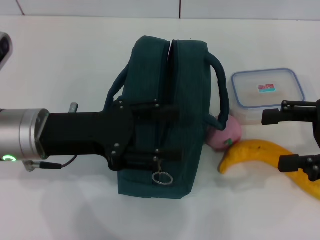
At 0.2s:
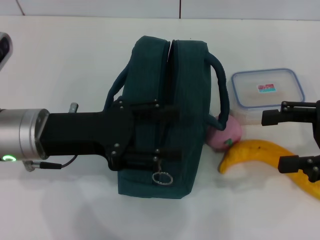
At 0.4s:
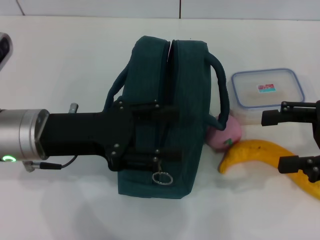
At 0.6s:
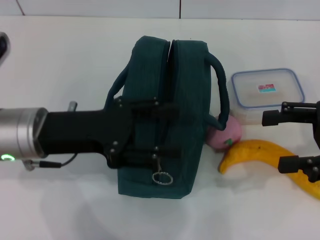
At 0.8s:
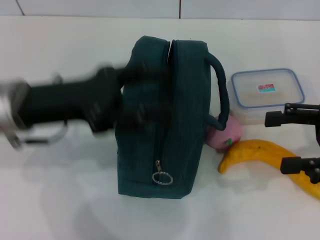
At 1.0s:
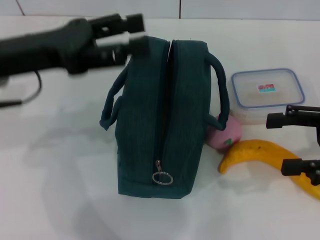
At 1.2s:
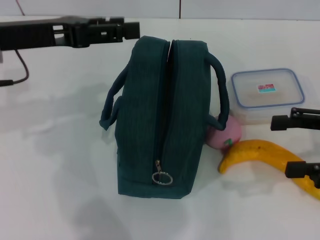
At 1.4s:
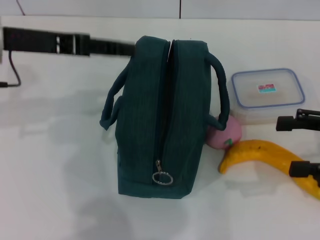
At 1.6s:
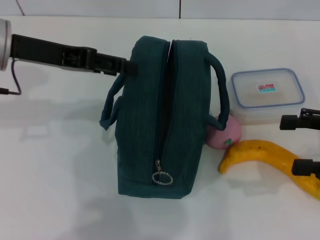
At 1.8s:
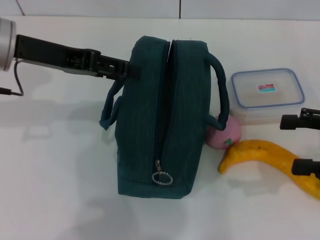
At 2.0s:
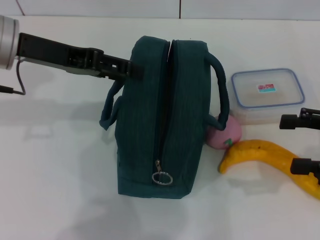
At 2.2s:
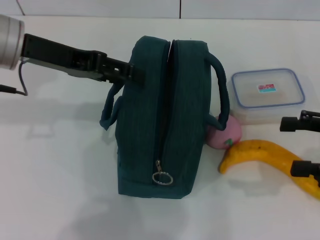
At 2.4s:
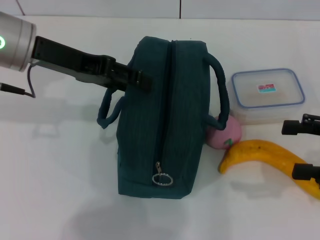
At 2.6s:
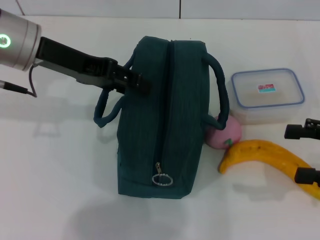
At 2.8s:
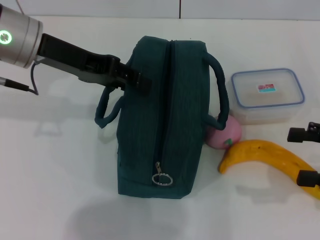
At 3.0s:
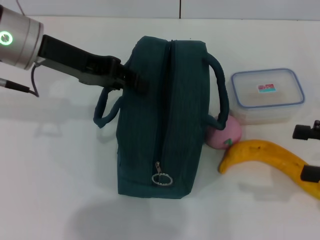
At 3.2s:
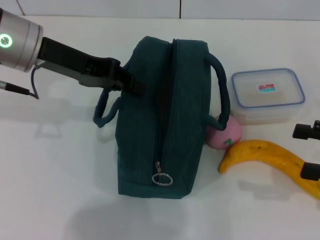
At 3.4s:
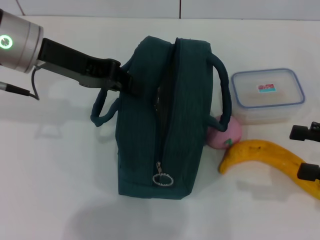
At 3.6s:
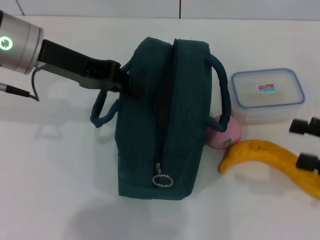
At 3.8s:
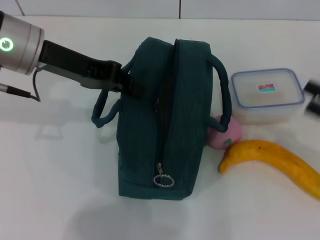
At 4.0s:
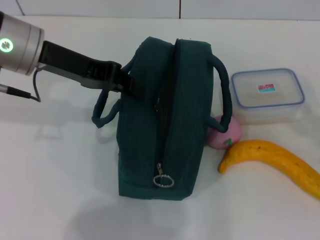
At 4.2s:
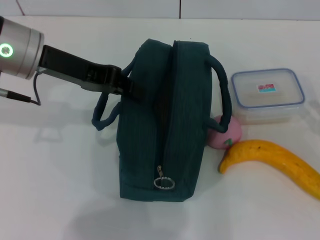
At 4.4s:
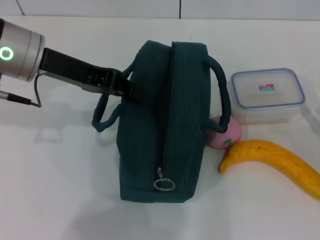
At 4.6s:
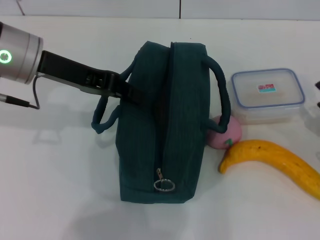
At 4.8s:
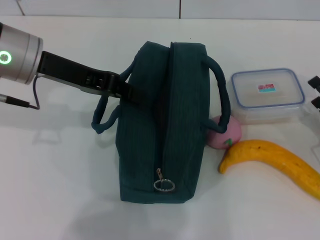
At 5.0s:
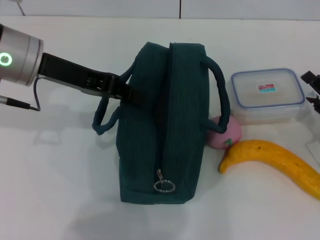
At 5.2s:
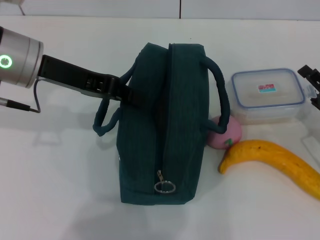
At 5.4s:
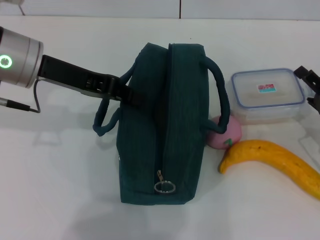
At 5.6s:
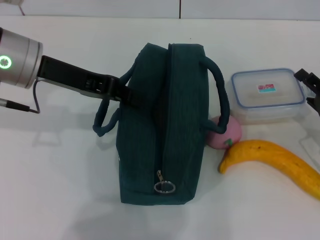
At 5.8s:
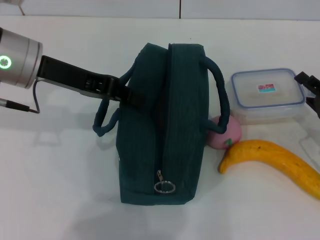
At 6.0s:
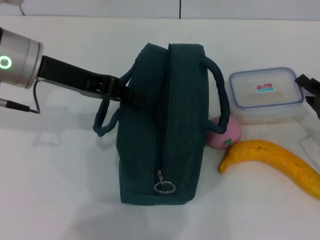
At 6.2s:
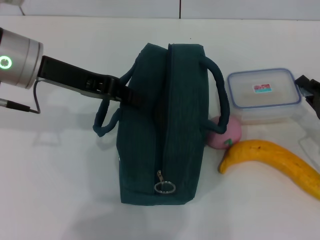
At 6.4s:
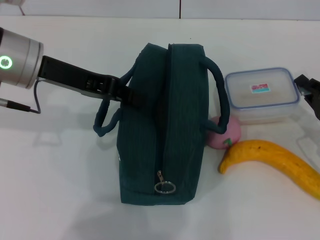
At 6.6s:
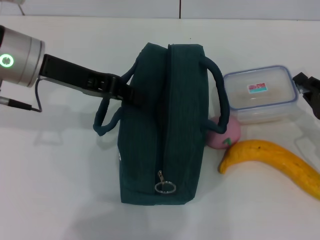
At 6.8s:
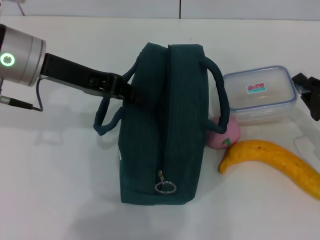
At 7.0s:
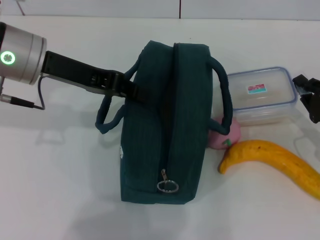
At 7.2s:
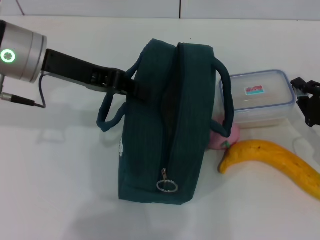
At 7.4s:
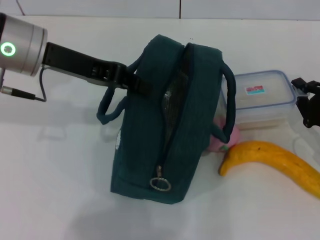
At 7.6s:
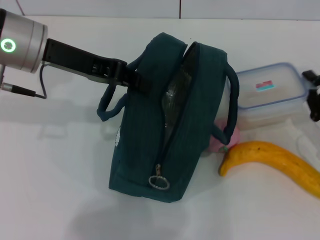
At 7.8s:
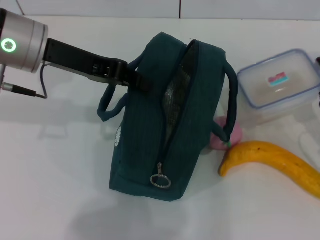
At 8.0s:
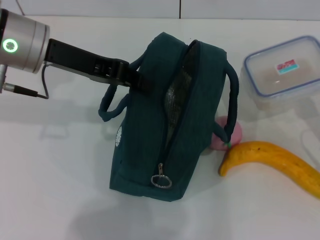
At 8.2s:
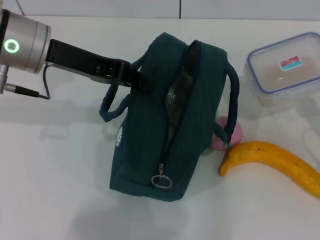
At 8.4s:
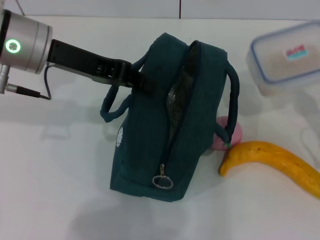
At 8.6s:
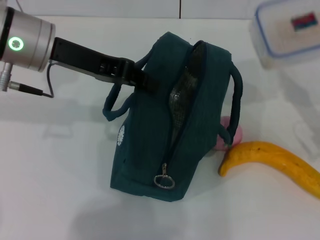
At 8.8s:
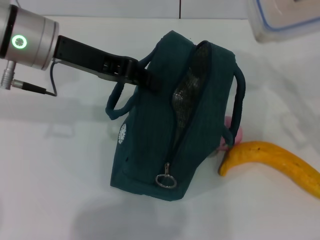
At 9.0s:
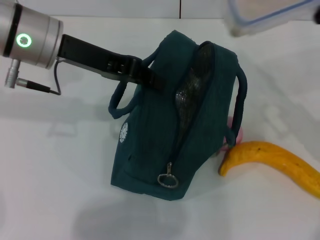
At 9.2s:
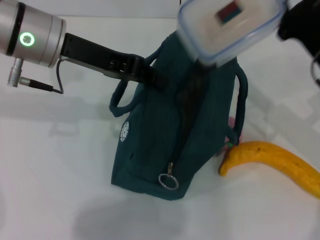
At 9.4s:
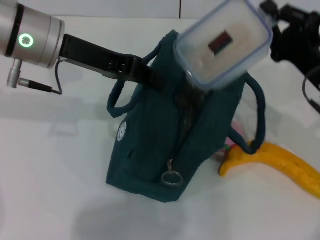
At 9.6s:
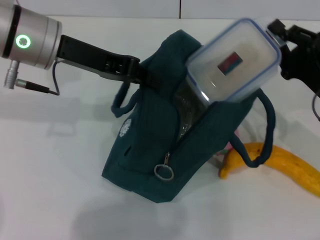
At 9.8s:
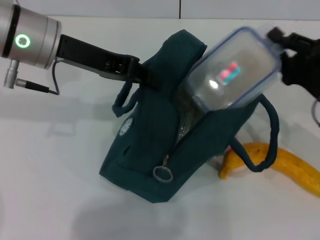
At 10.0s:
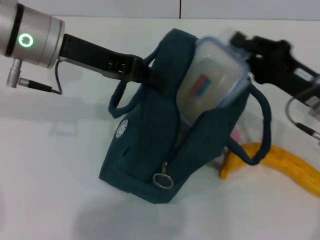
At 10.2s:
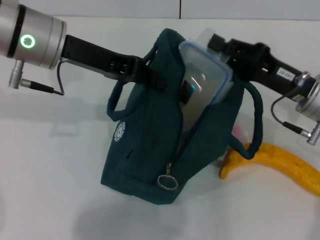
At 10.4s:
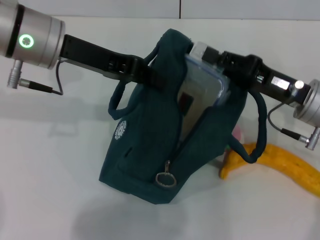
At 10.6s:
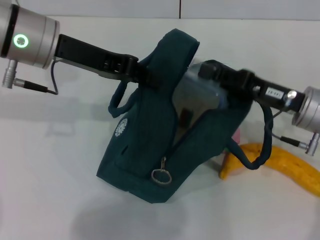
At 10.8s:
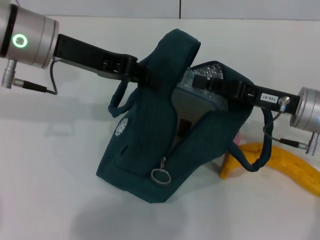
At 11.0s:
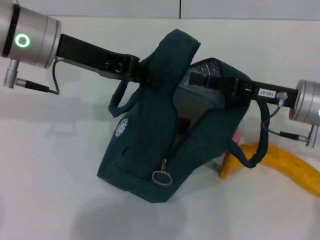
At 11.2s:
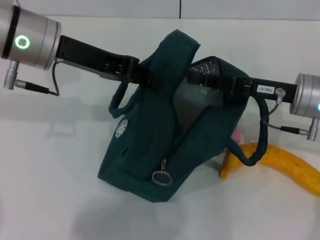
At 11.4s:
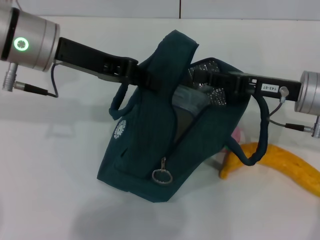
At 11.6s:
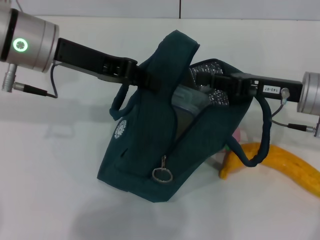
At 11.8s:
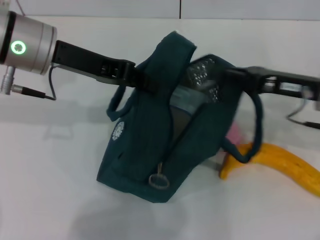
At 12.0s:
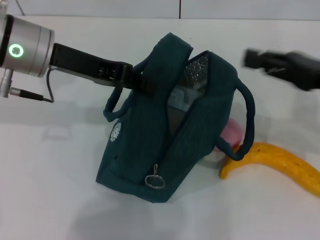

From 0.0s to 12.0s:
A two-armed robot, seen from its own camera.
Step, from 0.0s to 3.4s: Hold the lunch bag with your left hand.
Step, from 3.6s to 6.6s: Pick up the lunch box with your right hand.
Step, from 6.8s to 11.2s: Place the lunch box into the lunch bag with your right hand.
From 0.0s to 1.6s: The left gripper is displaced upward and forward by roughly 10 cm.
From 1.6s to 3.0s: The left gripper closes its fingers.
From 3.0s to 4.4s: The left gripper closes up. The right gripper shifts roughly 10 cm downward.
From 4.4s to 6.0s: The right gripper shifts by approximately 5 cm, and closes up.
From 6.0s to 7.6s: The right gripper closes.
From 7.6s to 9.0s: The right gripper travels upward and forward by roughly 10 cm.
From 9.0s to 10.4s: The right gripper moves approximately 5 cm.
From 10.4s to 12.0s: The right gripper is displaced to the right and upward by roughly 10 cm.

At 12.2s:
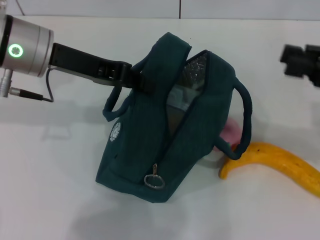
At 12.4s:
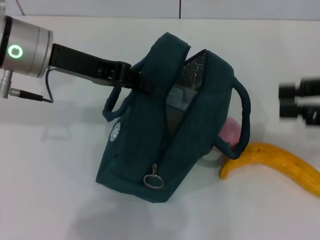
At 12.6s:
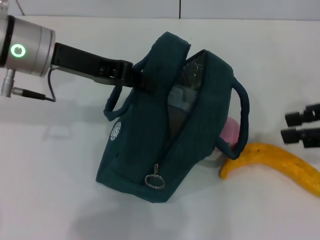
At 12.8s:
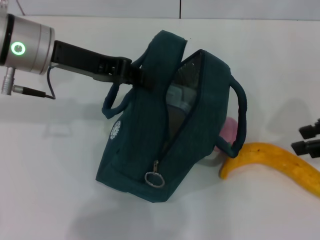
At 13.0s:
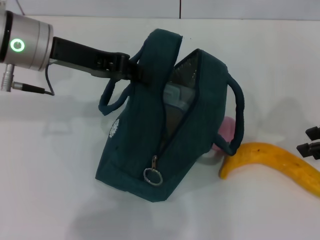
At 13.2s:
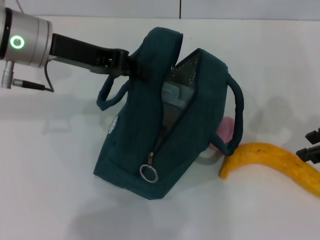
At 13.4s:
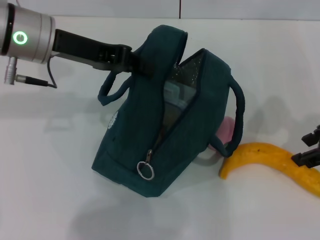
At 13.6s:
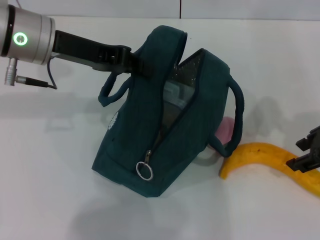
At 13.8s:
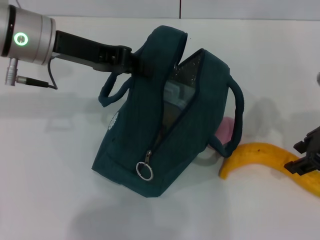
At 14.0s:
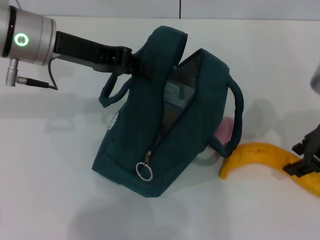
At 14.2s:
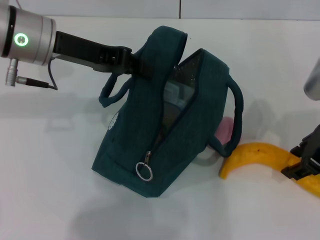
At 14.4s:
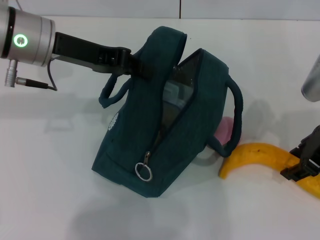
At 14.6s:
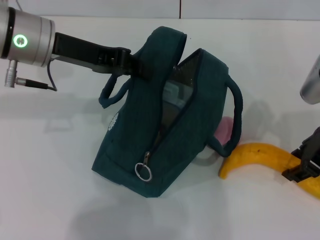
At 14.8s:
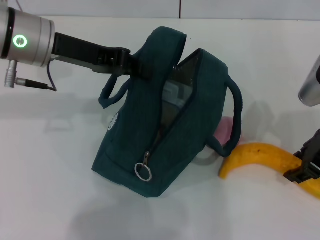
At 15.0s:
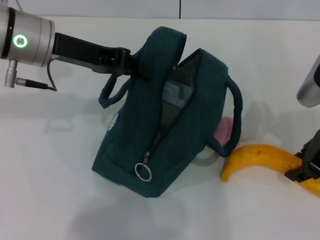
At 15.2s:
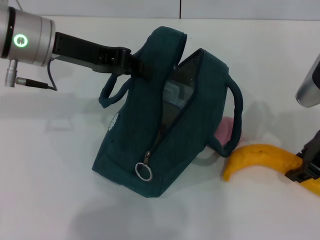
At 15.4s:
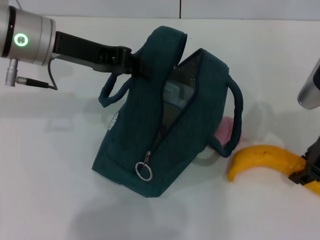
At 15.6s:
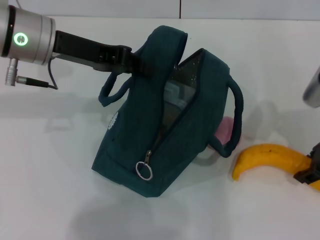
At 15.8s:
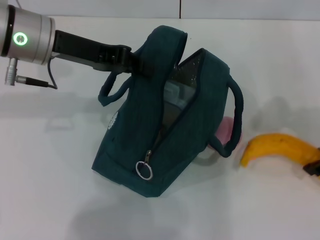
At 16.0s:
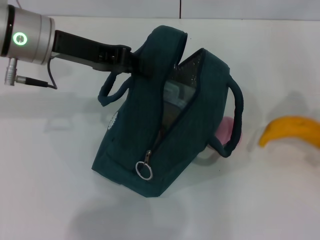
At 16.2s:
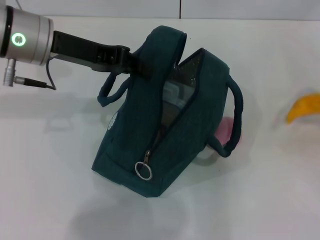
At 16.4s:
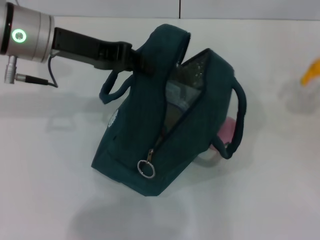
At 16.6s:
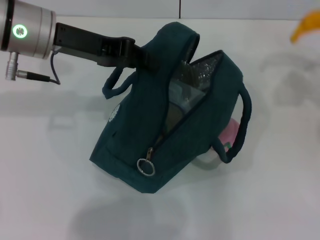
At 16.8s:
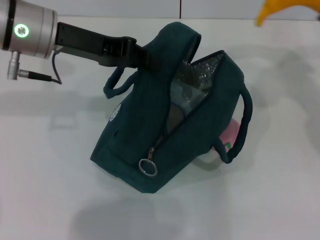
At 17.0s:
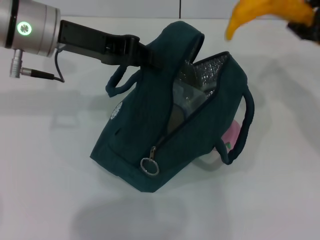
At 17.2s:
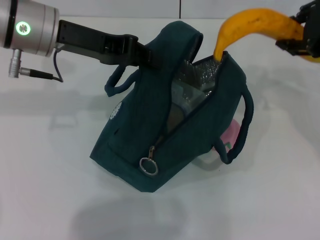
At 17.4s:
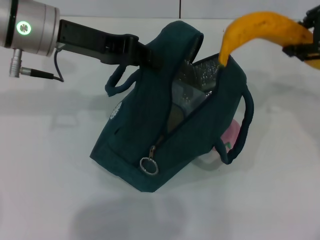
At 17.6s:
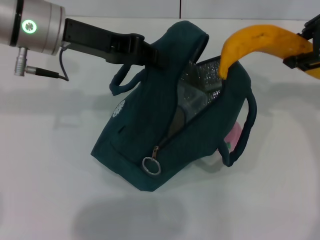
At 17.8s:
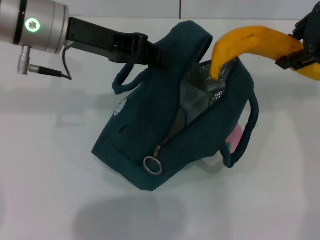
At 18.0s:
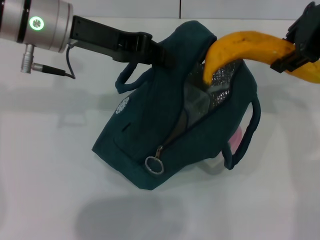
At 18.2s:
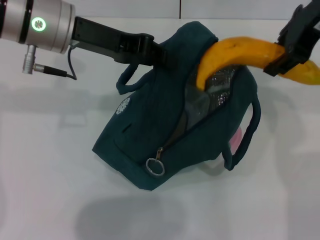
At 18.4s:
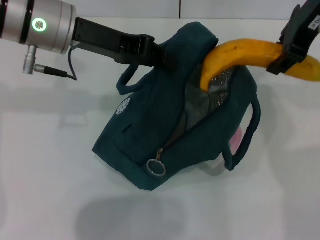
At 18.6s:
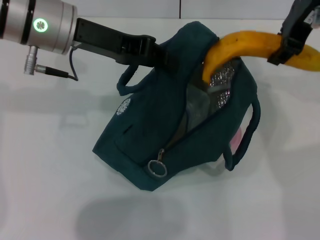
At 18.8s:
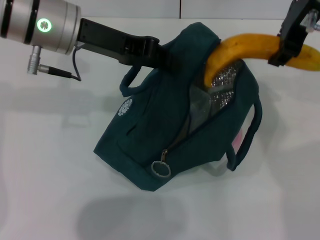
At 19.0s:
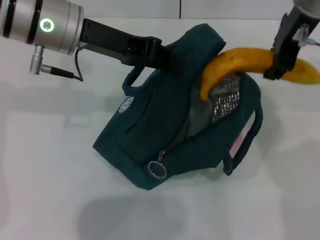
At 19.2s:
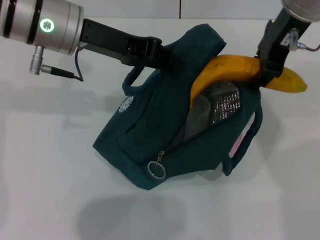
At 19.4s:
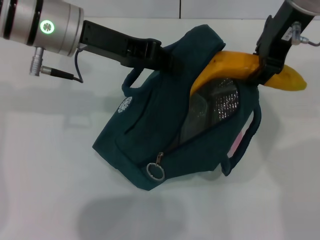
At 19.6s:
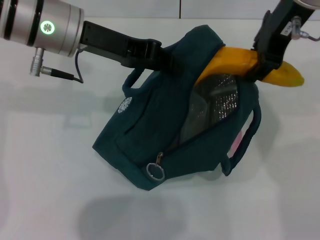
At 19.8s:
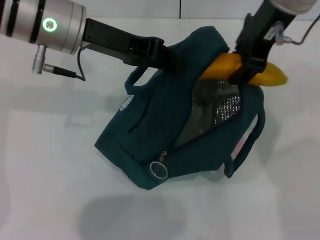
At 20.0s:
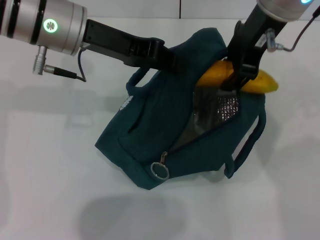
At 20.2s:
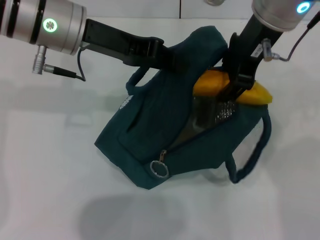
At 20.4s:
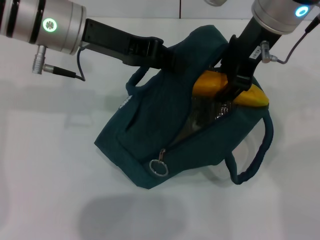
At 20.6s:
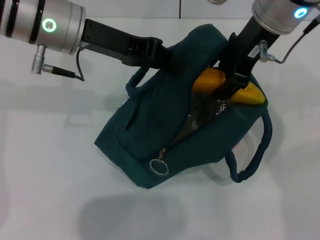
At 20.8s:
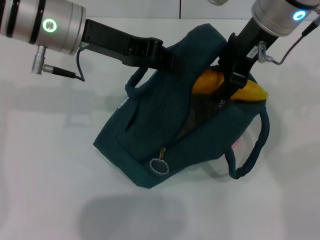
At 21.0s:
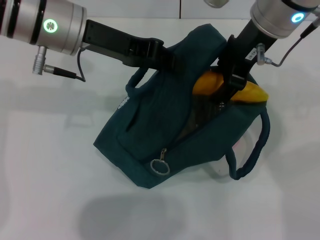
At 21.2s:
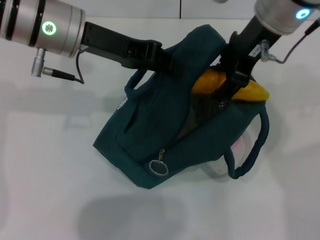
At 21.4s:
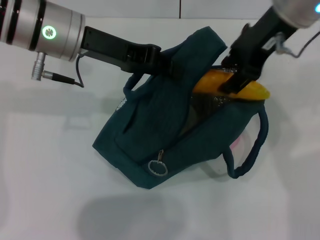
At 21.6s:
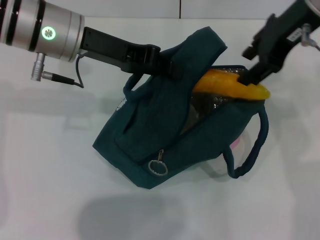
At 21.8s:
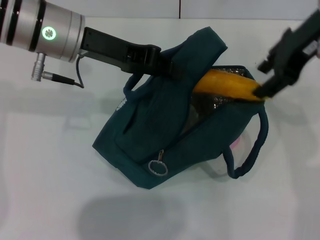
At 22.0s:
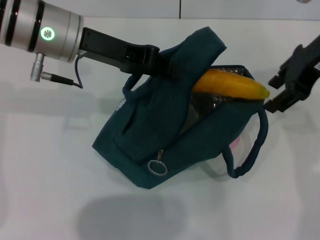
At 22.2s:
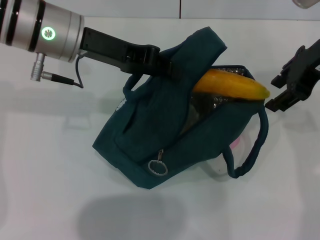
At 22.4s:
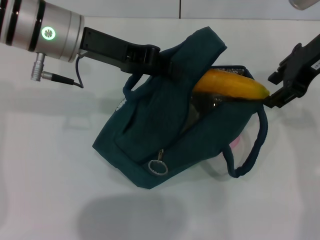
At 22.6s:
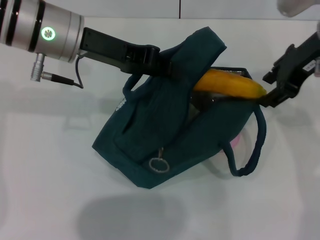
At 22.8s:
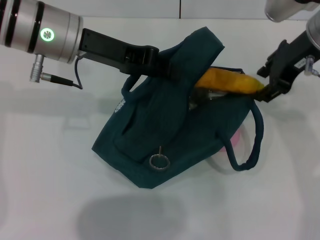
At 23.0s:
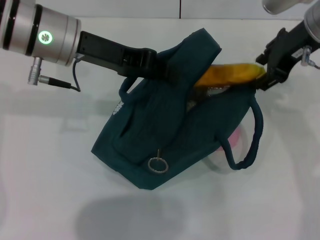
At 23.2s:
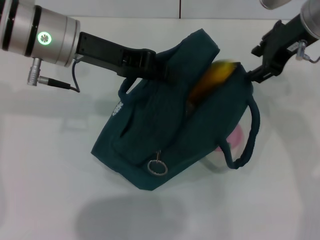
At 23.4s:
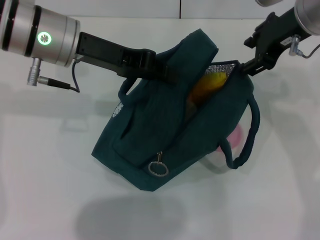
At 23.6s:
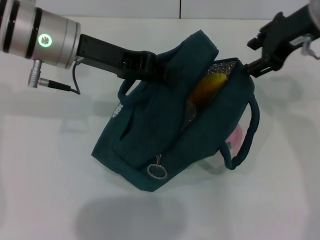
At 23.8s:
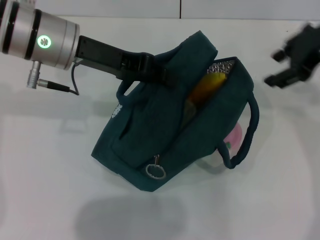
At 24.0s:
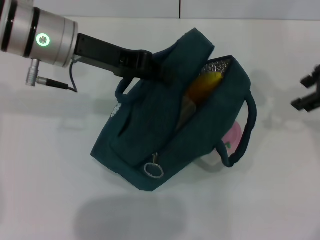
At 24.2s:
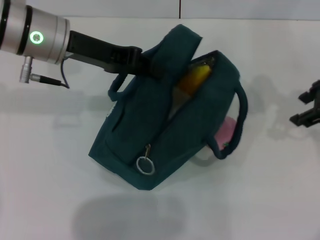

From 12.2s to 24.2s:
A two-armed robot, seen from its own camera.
Step, from 12.2s to 15.6s: Take the banana with your right hand.
Step, from 15.8s to 21.2s: Put the banana into the lunch bag with your right hand.
From 12.2s to 13.8s: The right gripper travels to the left by some 5 cm, and opens its fingers.
From 13.8s to 15.2s: There are only small adjustments of the grippers.
From 15.2s to 16.6s: The right gripper goes approximately 10 cm to the right and upward.
From 16.6s to 18.2s: The right gripper shifts roughly 15 cm to the left and upward.
From 18.2s to 19.8s: The right gripper heads to the left, covering roughly 5 cm.
From 19.8s to 21.2s: The grippers make only small movements.
From 21.2s to 22.6s: The right gripper shifts roughly 10 cm to the right.
From 22.6s to 24.2s: The right gripper travels to the right by some 5 cm.
